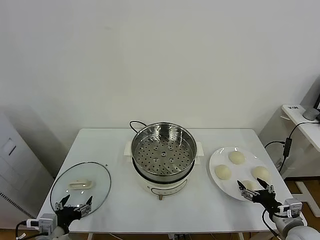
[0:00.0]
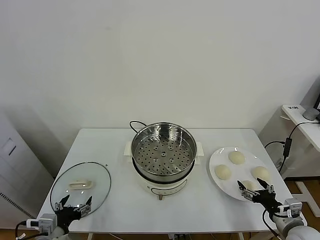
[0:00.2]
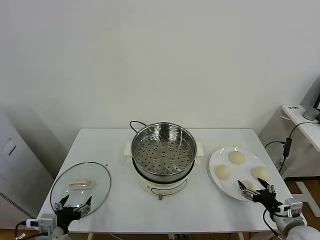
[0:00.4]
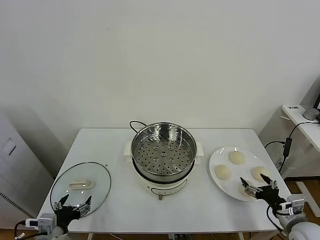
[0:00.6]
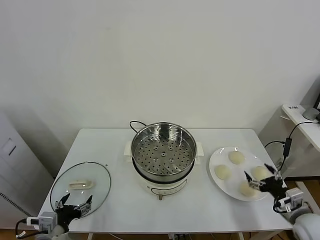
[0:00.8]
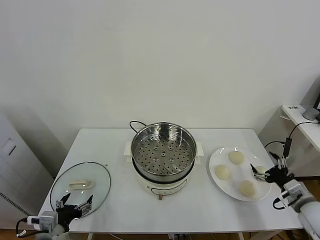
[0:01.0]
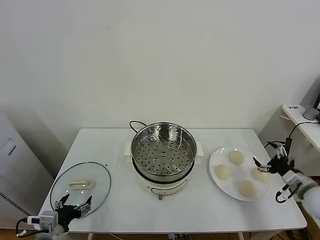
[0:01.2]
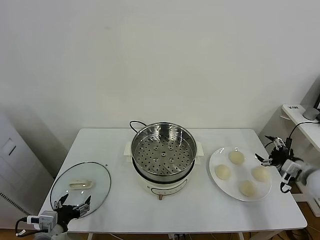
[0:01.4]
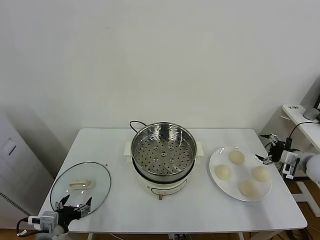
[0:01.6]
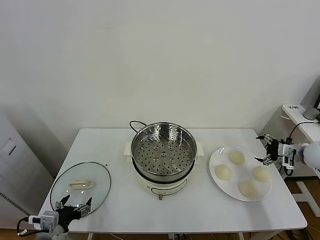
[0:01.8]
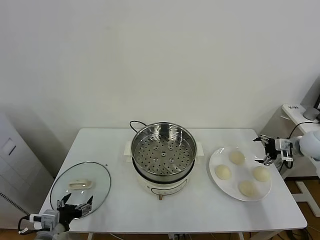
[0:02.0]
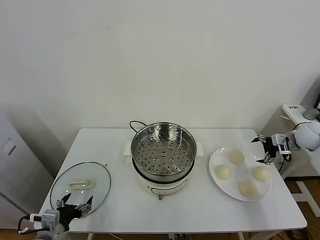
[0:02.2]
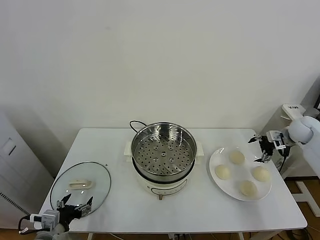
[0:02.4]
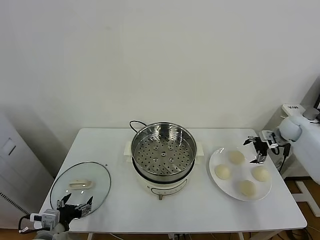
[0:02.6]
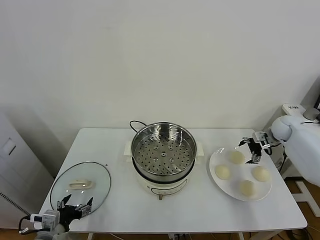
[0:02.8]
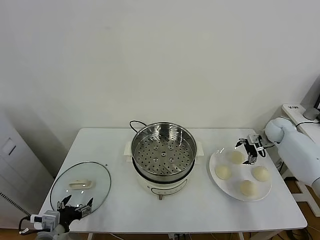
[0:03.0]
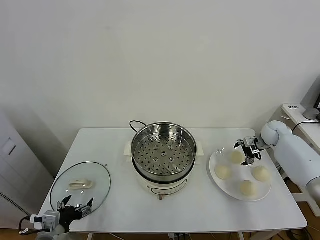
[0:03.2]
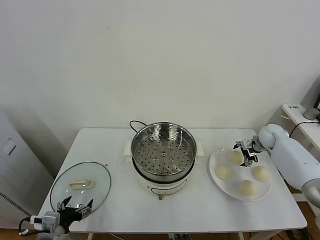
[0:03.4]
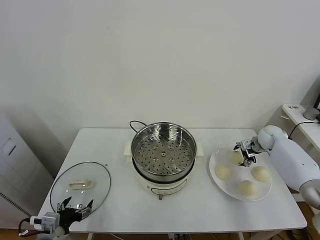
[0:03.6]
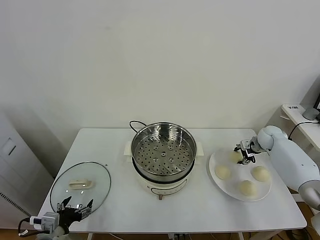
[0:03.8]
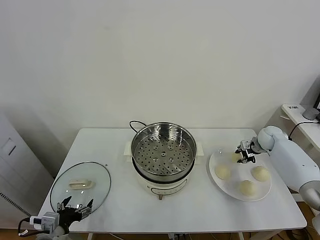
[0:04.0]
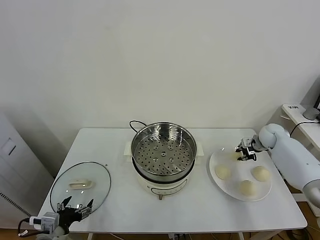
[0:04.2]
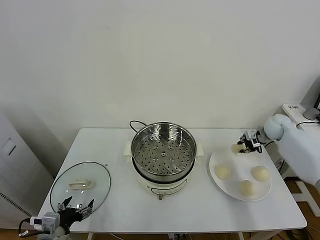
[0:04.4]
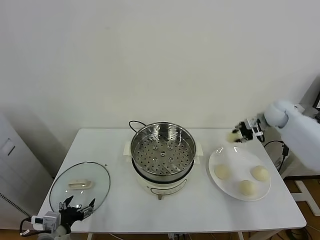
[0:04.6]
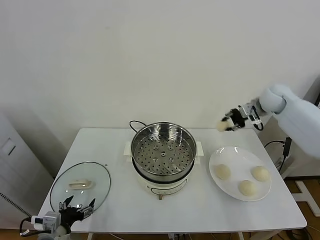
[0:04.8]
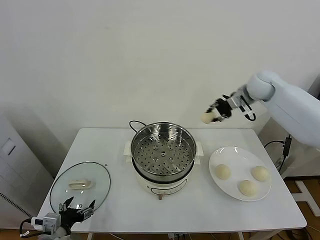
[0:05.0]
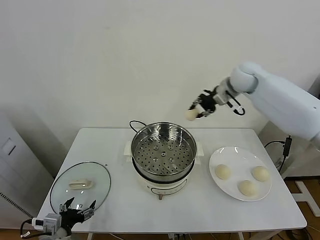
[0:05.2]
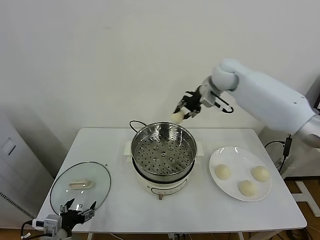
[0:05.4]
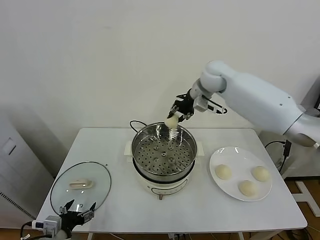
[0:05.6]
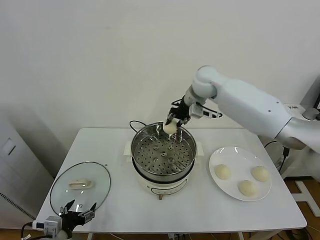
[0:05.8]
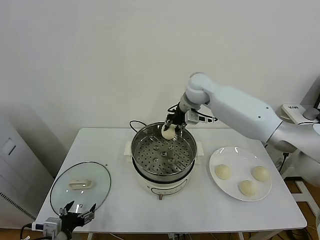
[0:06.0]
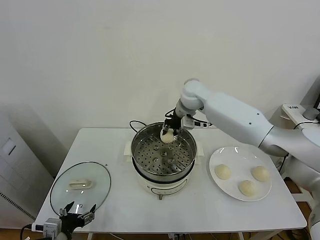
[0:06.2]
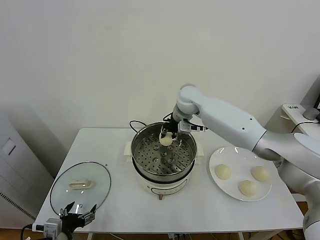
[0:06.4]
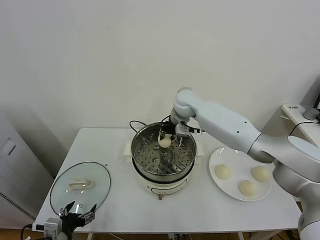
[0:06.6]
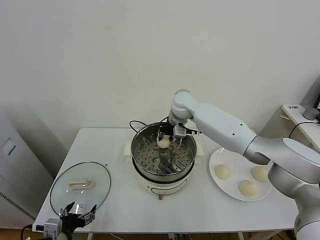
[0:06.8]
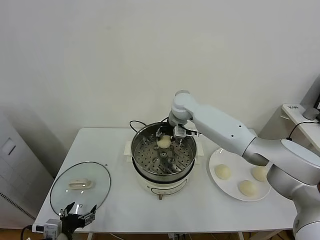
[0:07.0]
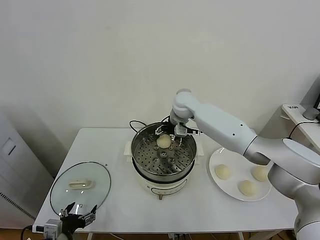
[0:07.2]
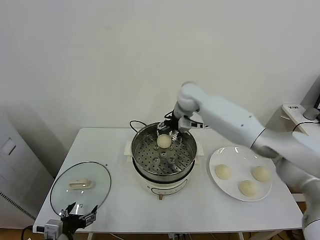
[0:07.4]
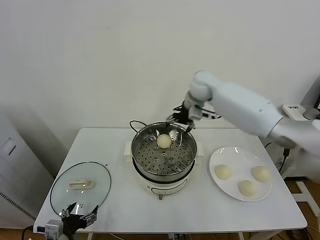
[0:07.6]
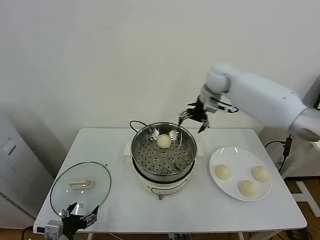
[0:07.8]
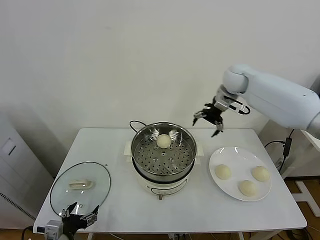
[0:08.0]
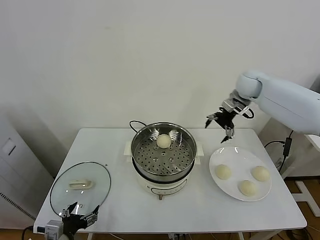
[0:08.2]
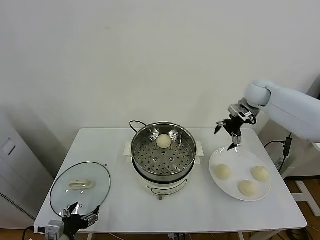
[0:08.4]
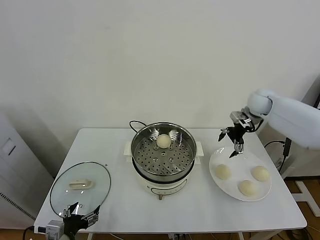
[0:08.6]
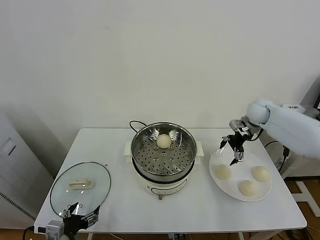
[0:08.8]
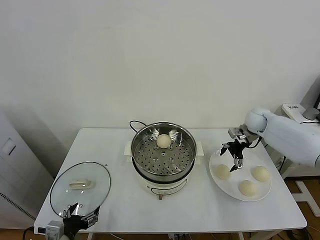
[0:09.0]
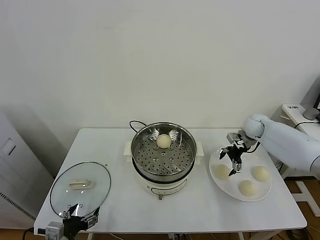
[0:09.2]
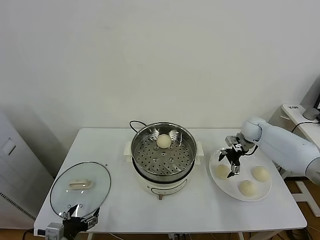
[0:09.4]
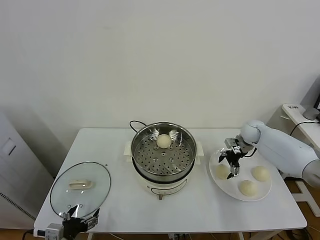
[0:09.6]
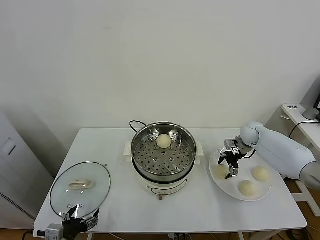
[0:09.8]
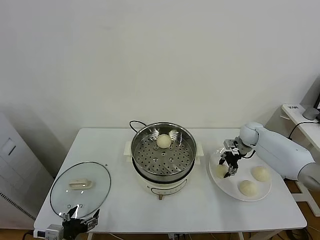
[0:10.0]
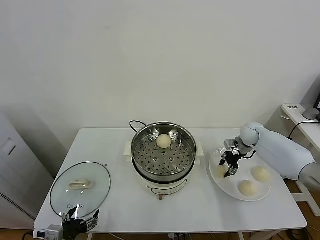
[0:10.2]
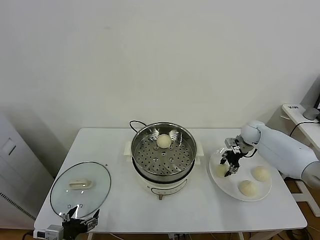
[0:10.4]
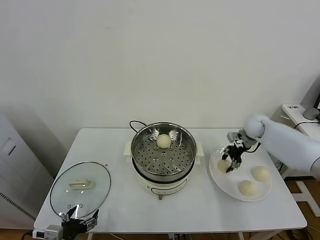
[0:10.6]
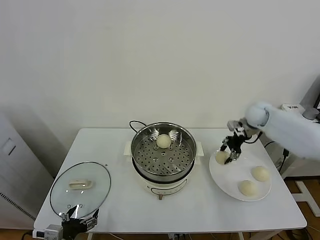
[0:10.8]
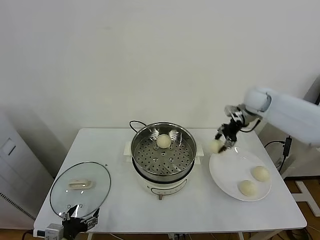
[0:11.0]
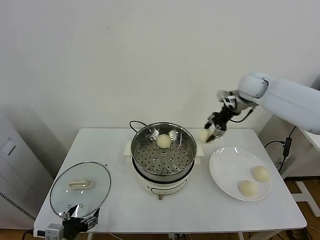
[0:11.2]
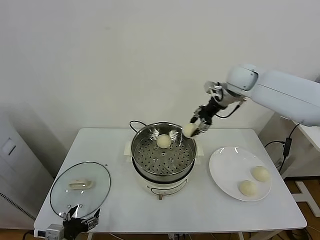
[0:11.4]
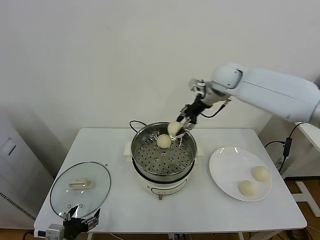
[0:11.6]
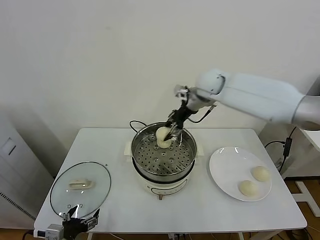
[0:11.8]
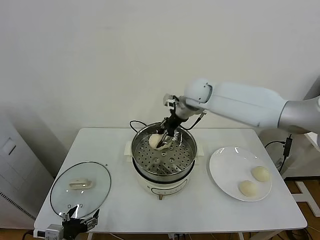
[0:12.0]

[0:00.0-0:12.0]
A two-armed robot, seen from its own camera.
Task of the whole recording: take steamed baozi put them in steamer.
Step, 0.0 to 3.8 s: Grasp the baozi in the plate with right gripper.
Step, 4.0 to 7.4 s: Place the baozi on the steamer with right gripper.
Step, 7.6 to 9.8 s: Grasp the baozi in the plate with right gripper.
1.6 to 3.0 s: The right gripper goes about 15 cm forward.
3.0 to 4.4 s: The right gripper goes some 5 cm upward, and closes up.
4.4 to 6.0 s: The right gripper shifts about 35 cm to the left.
6.0 to 7.6 s: The right gripper travels downward and back again, about 5 cm each way, and opens its fingers.
7.6 to 9.0 s: The right gripper heads to the right and downward, covering some 25 cm.
9.0 to 10.4 s: The right gripper closes its fingers.
10.4 to 12.0 s: The right gripper travels to the left and upward by about 30 cm.

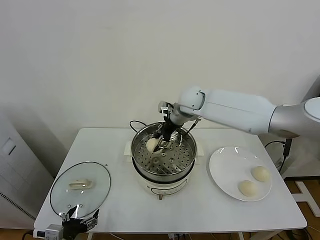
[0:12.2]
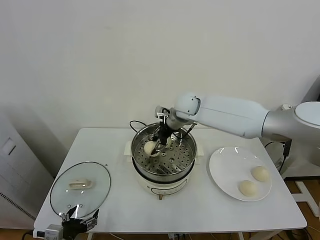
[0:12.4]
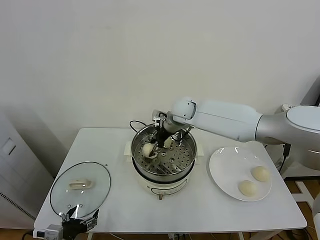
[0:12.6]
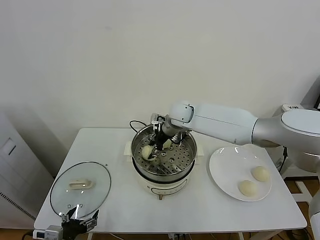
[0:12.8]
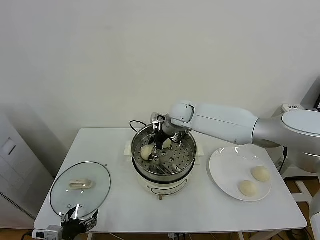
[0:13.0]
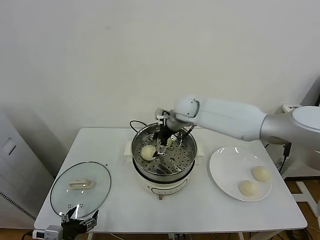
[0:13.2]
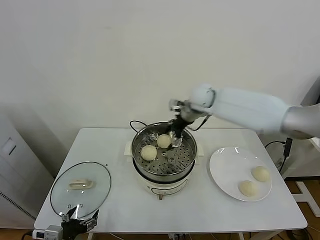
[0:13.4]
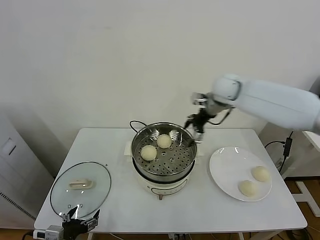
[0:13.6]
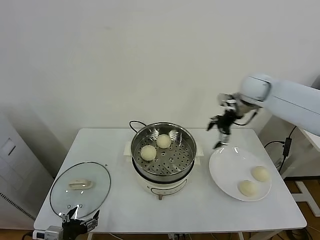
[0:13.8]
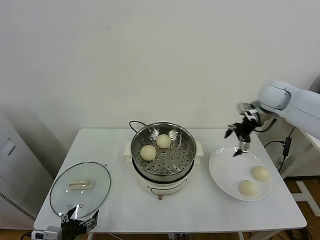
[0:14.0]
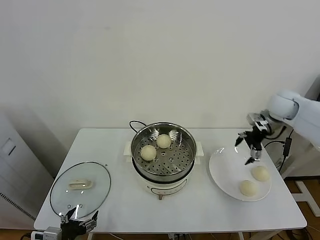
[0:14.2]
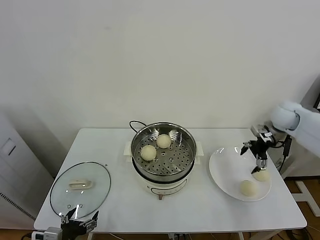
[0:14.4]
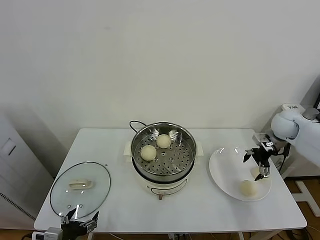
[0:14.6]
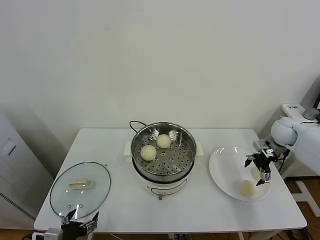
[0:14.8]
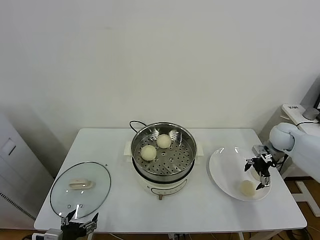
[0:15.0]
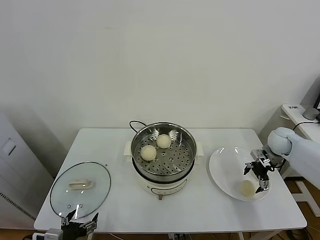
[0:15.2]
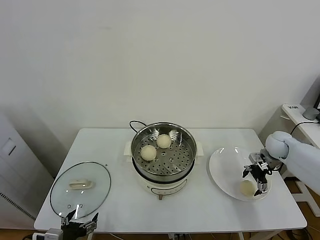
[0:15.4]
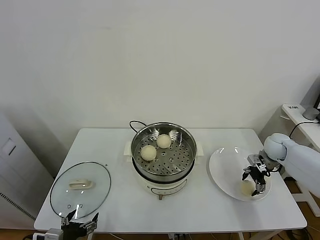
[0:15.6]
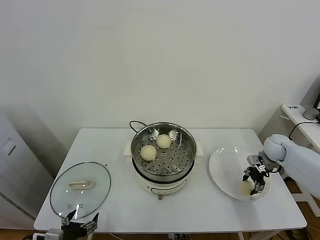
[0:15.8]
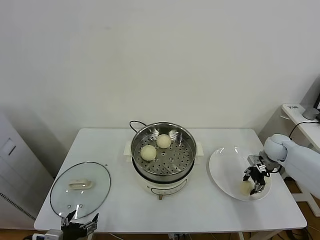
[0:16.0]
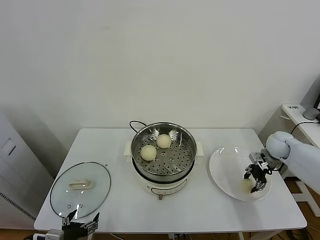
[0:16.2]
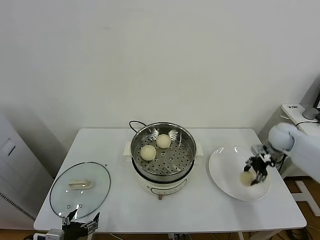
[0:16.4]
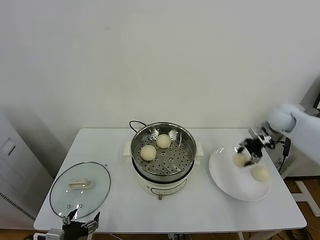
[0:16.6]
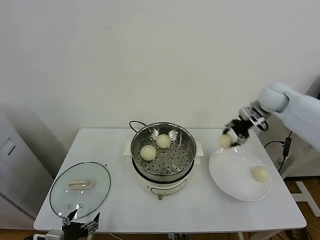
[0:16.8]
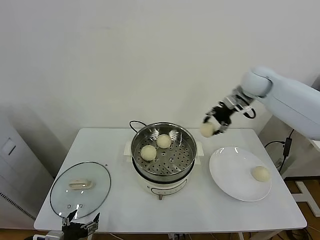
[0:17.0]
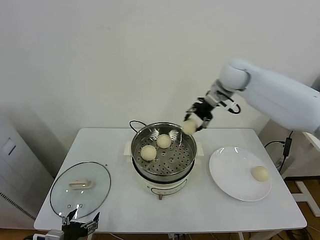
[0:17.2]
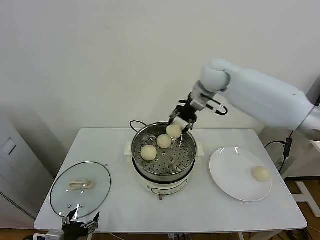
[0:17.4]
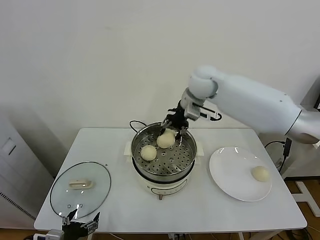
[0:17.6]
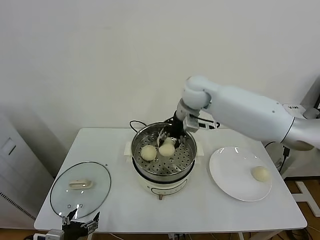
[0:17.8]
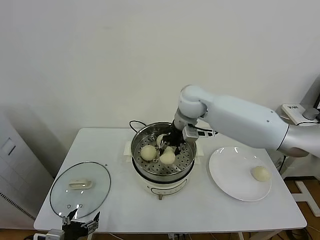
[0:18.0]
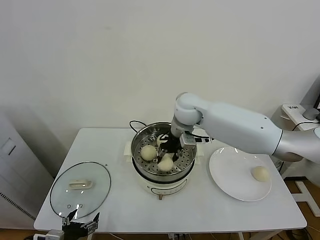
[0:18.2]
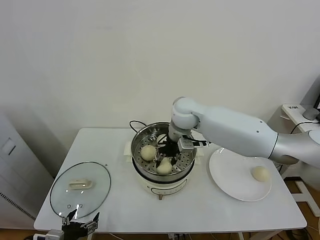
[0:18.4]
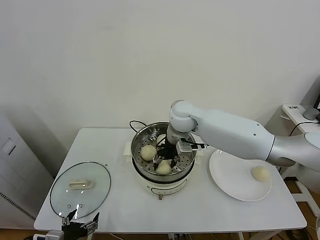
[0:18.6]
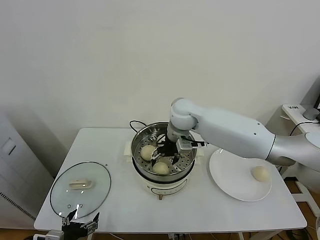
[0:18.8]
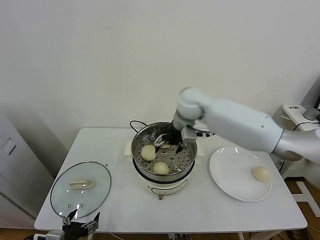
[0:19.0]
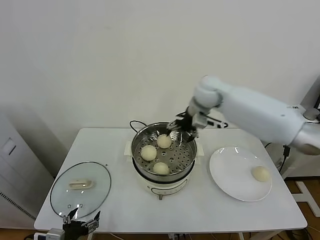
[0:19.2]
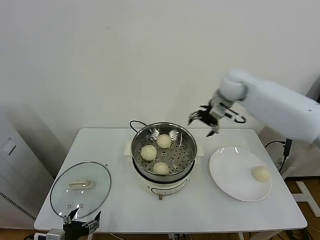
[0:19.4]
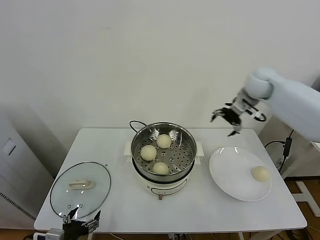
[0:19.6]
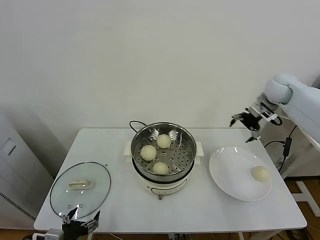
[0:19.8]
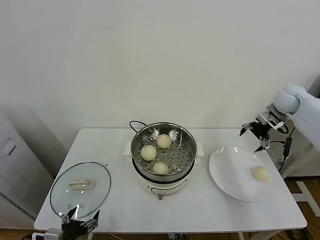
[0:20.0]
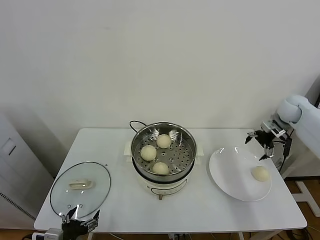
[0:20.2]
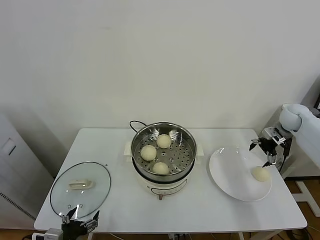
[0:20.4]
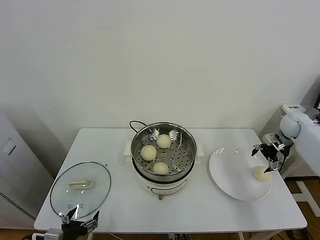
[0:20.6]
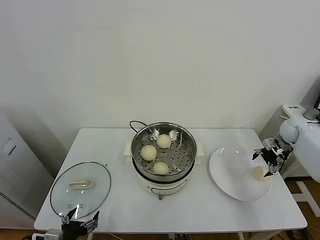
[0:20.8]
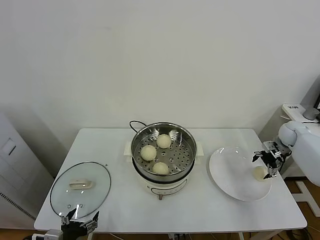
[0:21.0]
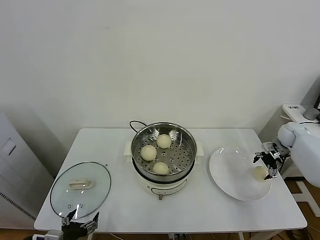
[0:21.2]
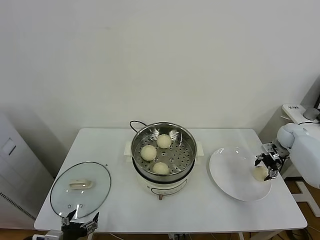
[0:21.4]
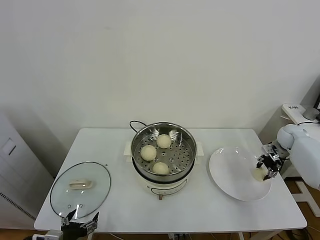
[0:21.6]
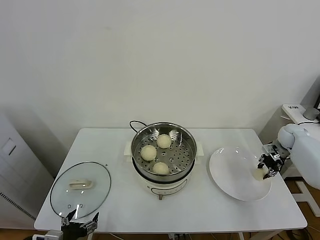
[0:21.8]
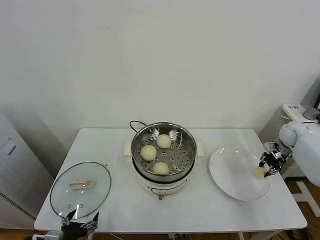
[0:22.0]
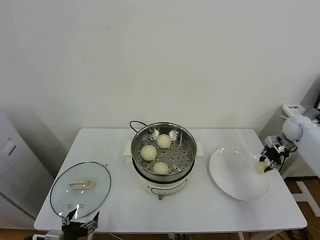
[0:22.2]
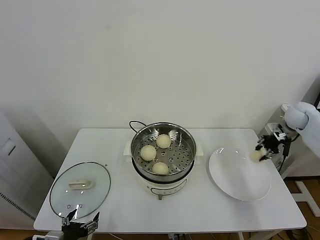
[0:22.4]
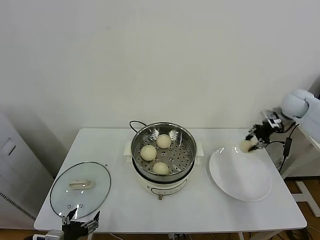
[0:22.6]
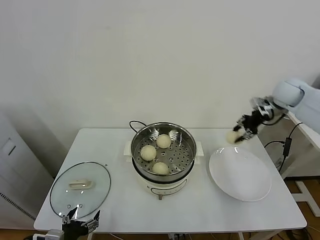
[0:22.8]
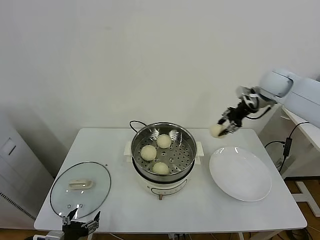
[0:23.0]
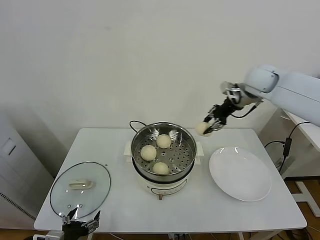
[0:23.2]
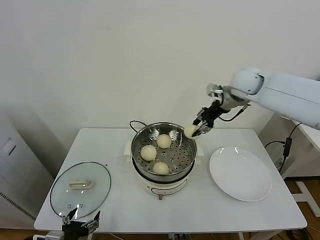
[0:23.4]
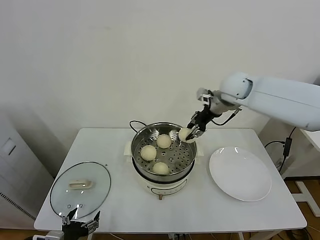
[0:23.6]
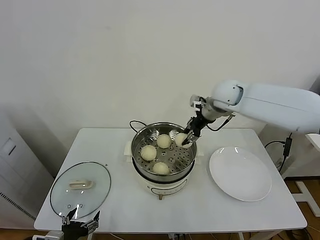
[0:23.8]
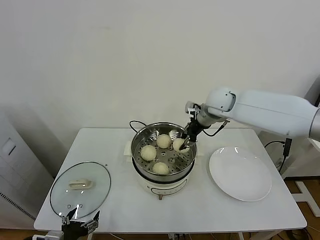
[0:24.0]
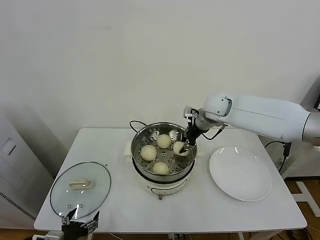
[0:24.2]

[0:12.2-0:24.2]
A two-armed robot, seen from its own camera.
Task of the whole recording: take steamed baozi put them in steamer.
Step, 13.4 to 16.0 s: Grasp the baozi in the plate with right gripper.
Step, 16.2 to 18.8 s: Place the baozi on the steamer with right gripper.
Step, 19.0 to 21.6 s: Grasp the baozi in the plate with right gripper.
12.2 to 13.8 s: The right gripper goes about 20 cm to the right, and opens its fingers.
13.8 to 15.2 s: The right gripper goes roughly 25 cm downward and to the right.
15.2 to 16.6 s: The right gripper travels upward by some 10 cm, and closes its fingers.
16.6 to 18.2 s: The right gripper is displaced to the left by some 35 cm.
18.2 to 19.8 s: The right gripper is displaced to the right by approximately 30 cm, and opens.
19.8 to 21.2 s: The right gripper goes some 25 cm downward and to the right.
21.2 to 22.6 s: The right gripper heads upward, covering some 15 cm, and closes.
22.6 to 24.2 s: The right gripper travels to the left by roughly 25 cm.
